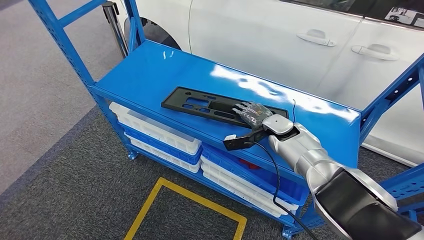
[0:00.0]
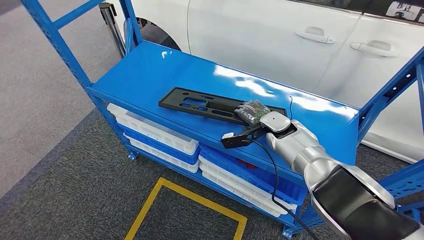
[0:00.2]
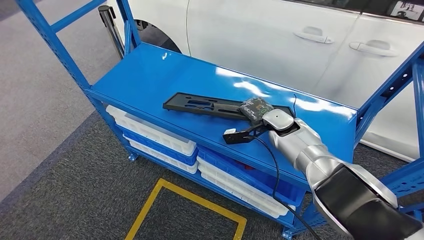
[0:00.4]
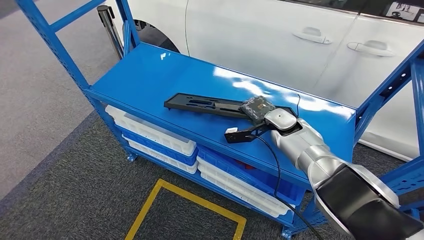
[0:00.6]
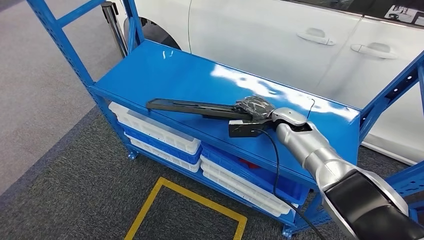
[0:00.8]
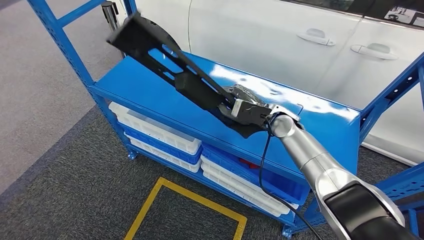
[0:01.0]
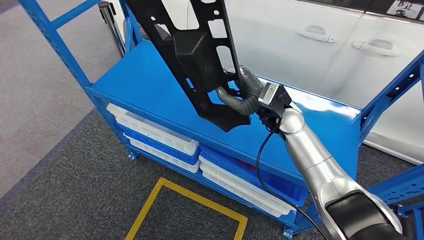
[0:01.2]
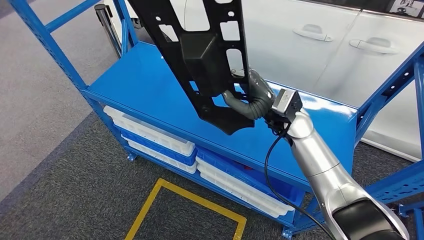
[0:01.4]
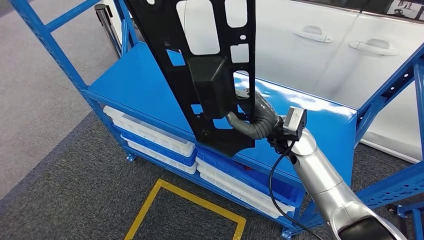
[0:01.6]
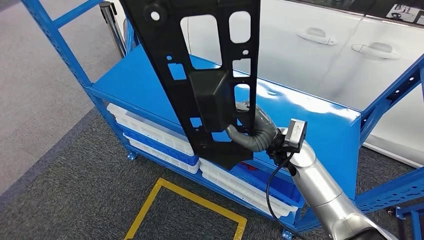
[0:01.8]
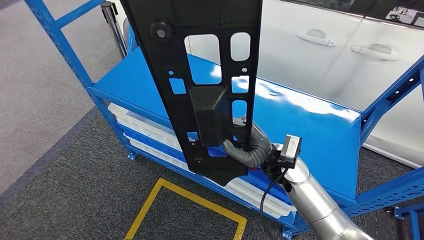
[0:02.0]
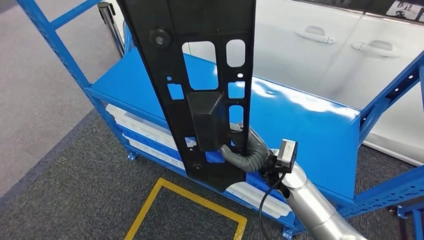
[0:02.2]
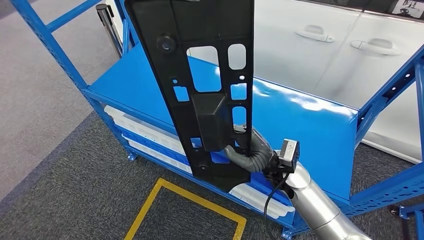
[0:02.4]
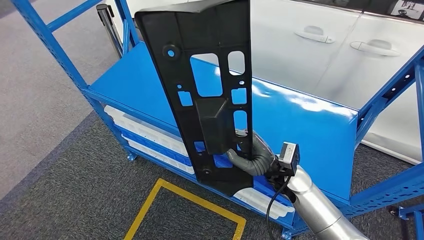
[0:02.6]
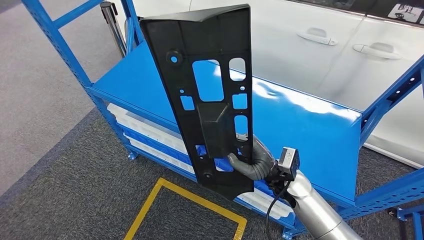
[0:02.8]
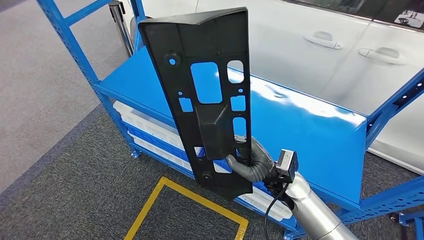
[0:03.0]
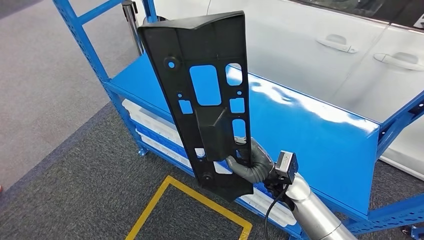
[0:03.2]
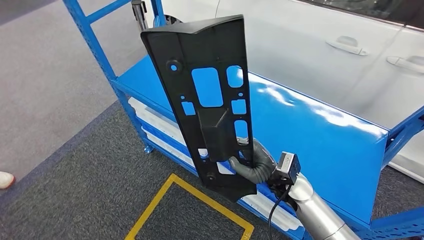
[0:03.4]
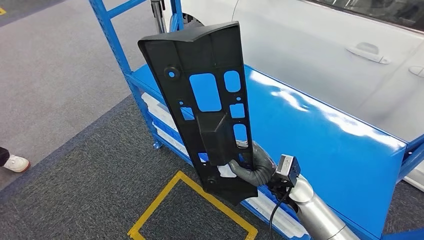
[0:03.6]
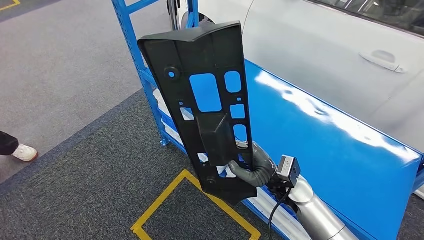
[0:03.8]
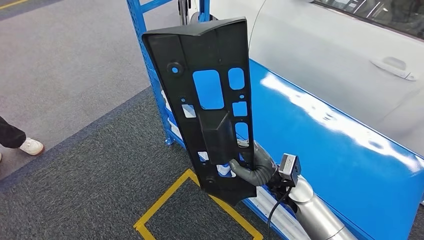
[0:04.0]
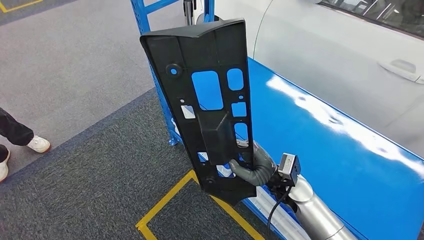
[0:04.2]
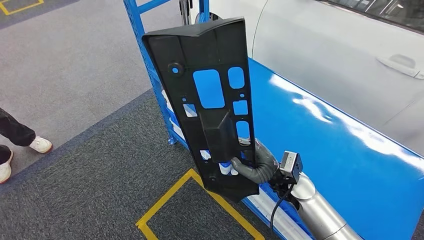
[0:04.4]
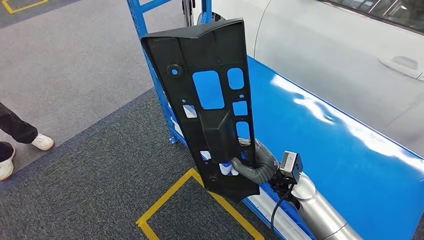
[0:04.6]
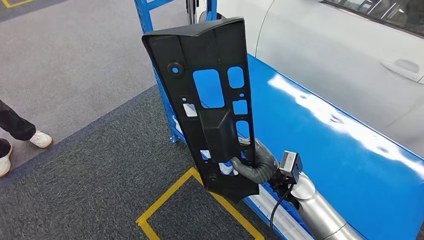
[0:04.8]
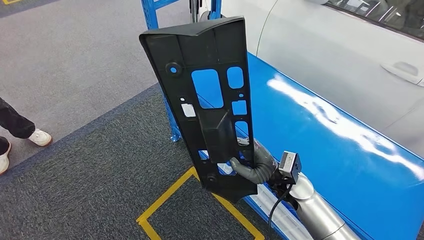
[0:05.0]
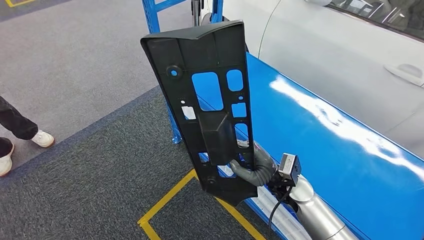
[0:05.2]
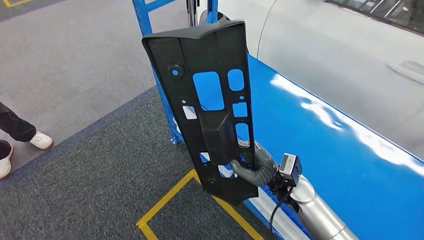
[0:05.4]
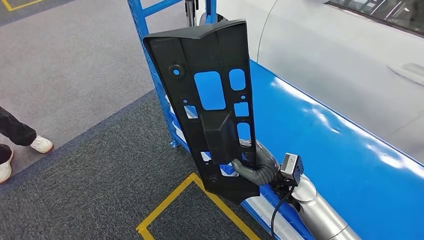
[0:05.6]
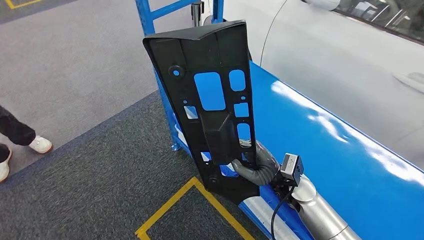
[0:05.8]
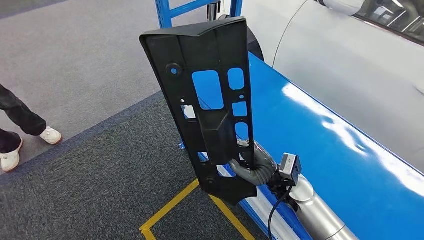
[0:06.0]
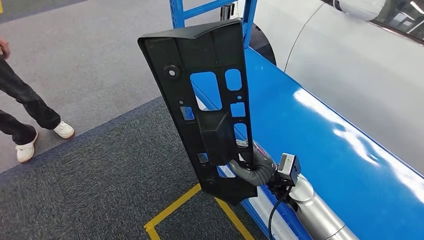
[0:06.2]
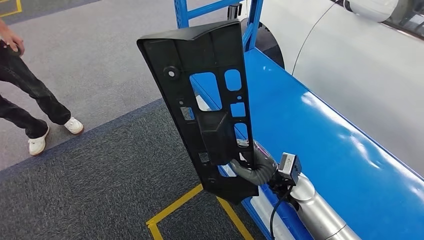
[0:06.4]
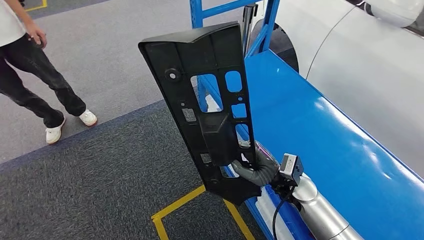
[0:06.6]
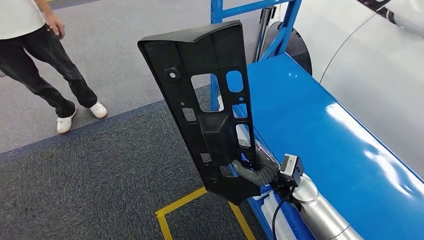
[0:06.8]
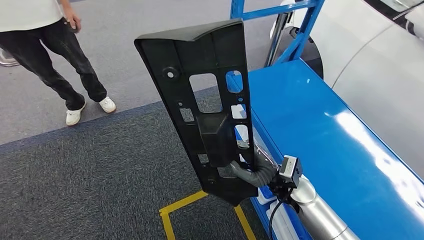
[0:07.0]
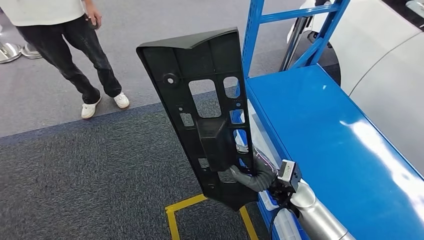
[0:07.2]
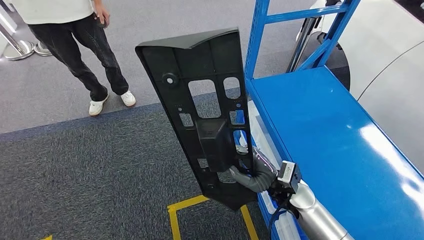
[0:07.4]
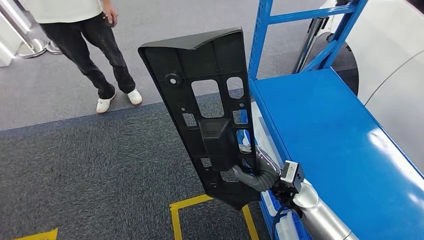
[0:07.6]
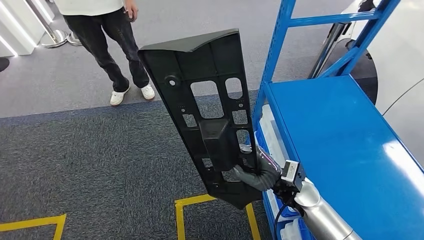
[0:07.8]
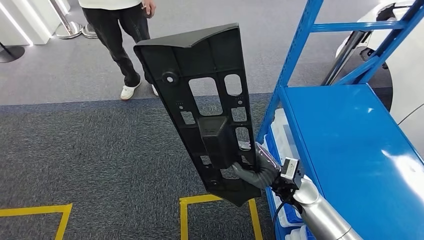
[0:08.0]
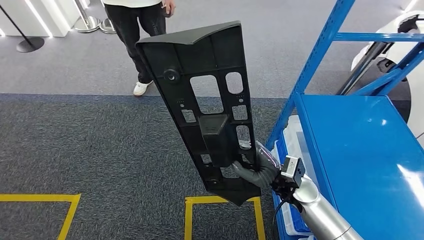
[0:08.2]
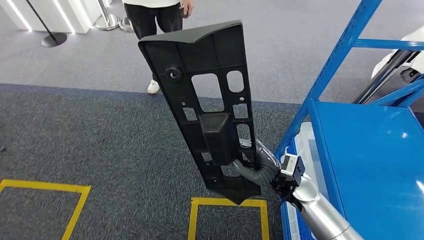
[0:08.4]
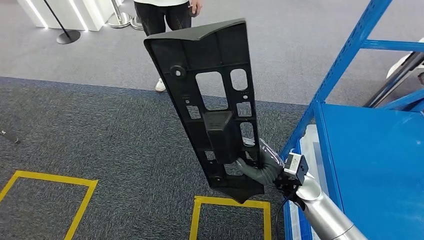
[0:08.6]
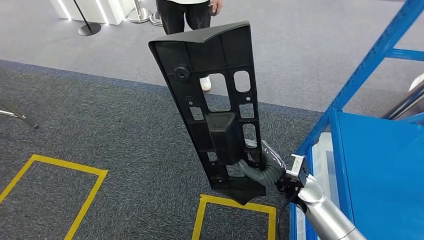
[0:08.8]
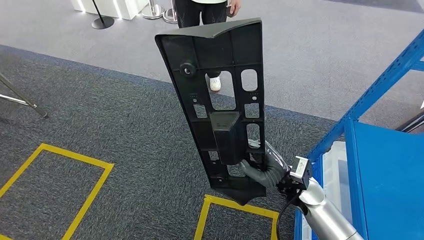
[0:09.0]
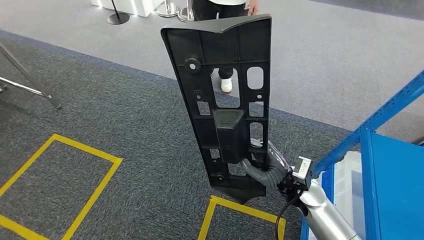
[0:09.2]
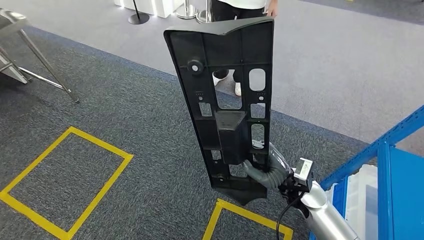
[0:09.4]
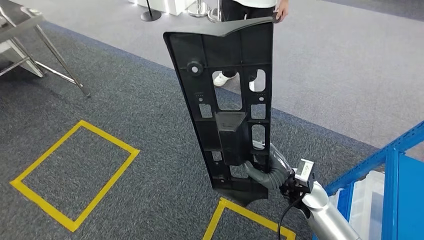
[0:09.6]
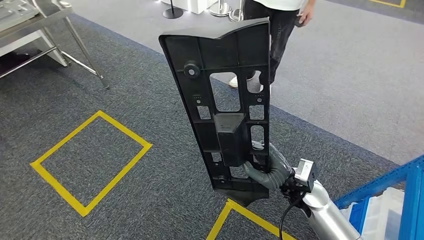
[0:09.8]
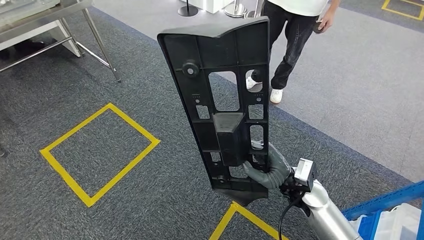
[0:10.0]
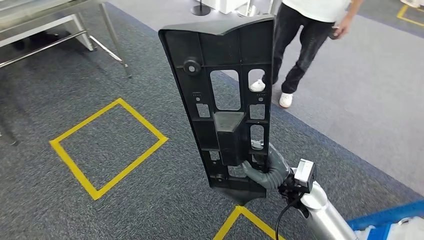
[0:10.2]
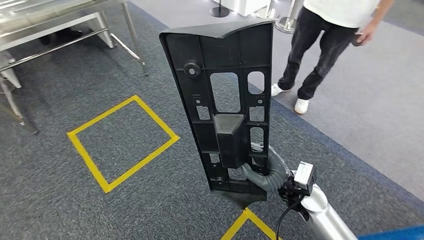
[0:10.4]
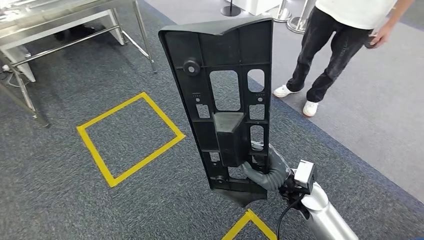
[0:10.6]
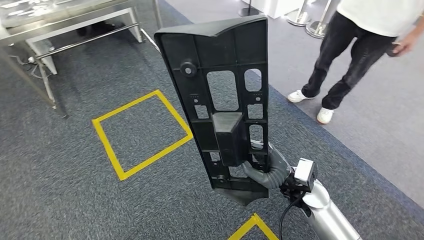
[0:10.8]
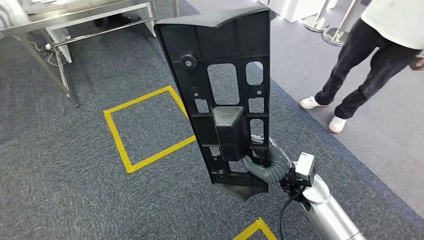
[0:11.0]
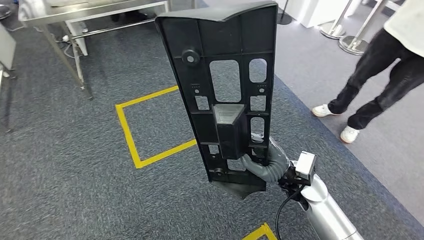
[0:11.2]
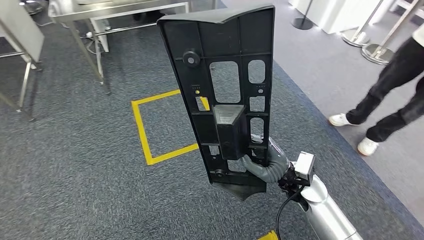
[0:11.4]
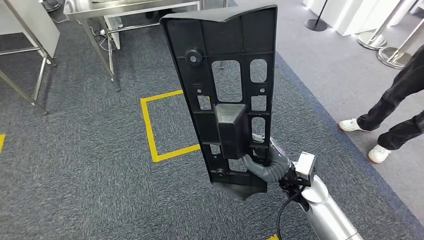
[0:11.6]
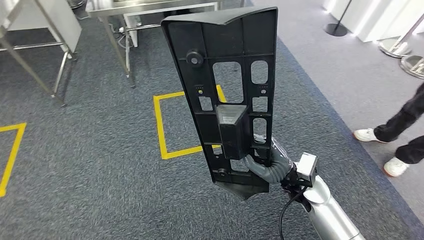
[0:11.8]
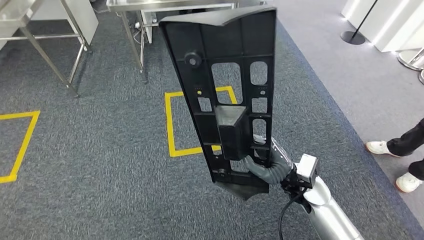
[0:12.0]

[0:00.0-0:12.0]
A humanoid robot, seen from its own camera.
Step, 0:00.0 to 0:02.2: Pick up the large material from the shelf.

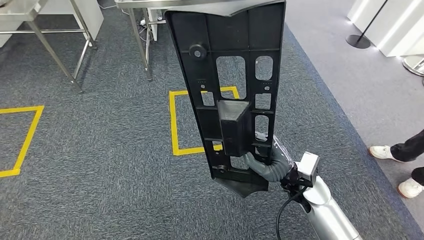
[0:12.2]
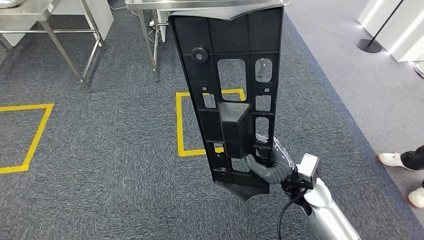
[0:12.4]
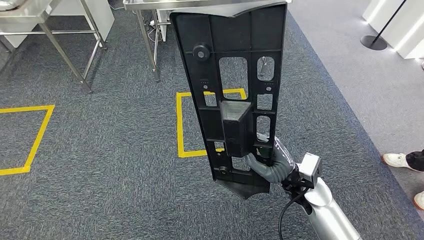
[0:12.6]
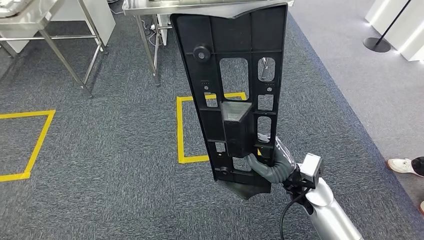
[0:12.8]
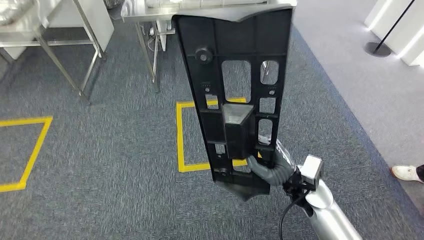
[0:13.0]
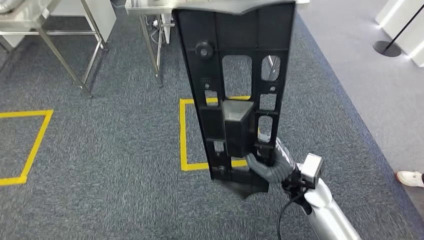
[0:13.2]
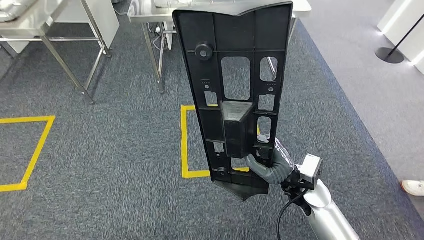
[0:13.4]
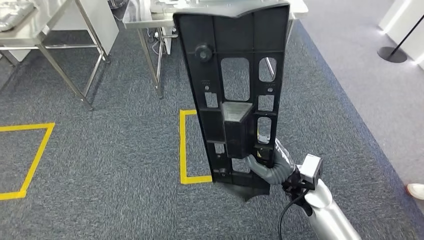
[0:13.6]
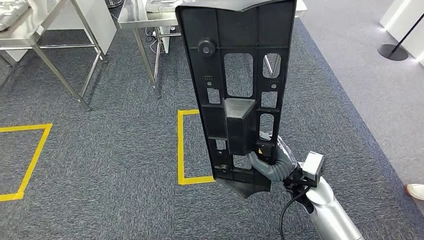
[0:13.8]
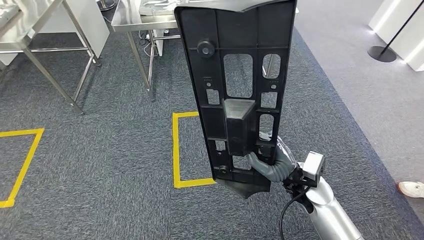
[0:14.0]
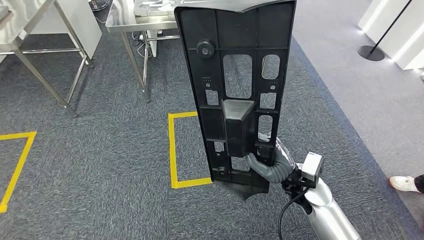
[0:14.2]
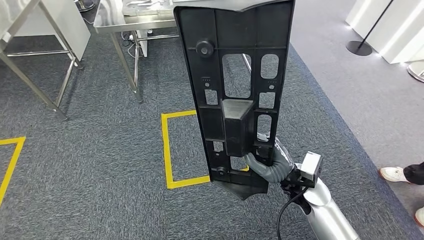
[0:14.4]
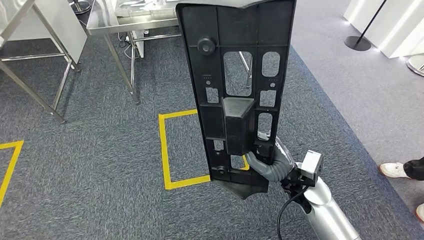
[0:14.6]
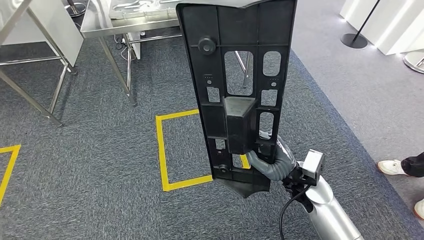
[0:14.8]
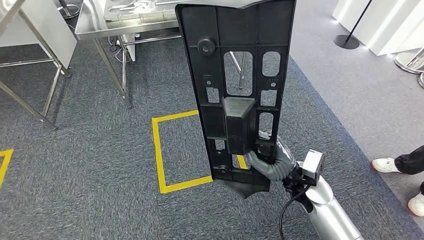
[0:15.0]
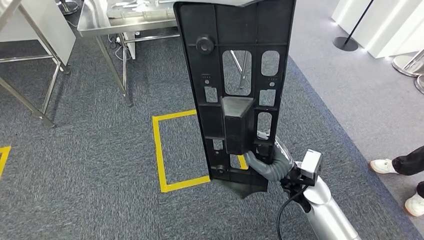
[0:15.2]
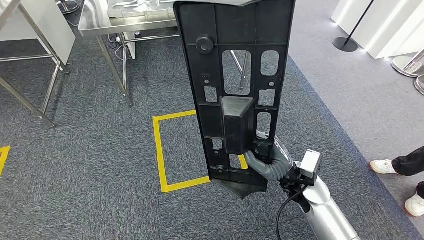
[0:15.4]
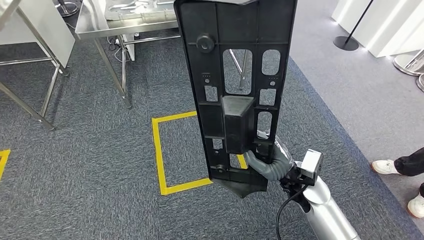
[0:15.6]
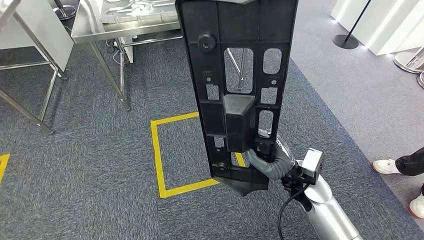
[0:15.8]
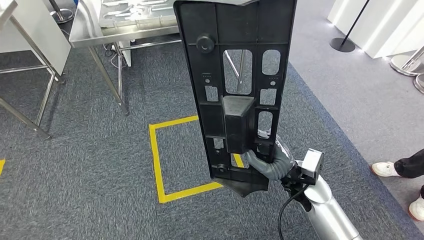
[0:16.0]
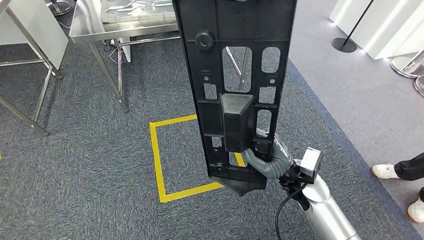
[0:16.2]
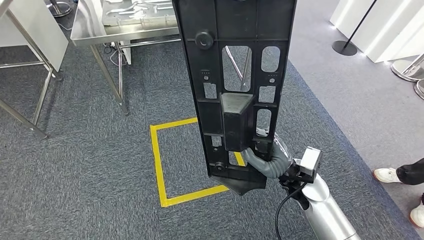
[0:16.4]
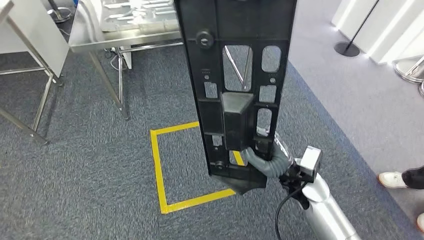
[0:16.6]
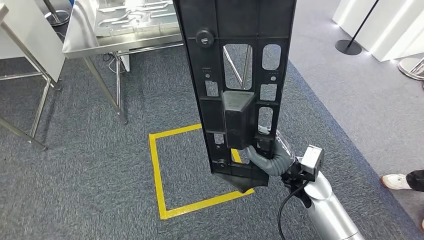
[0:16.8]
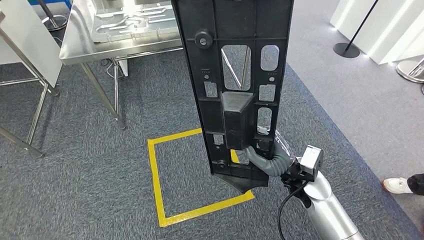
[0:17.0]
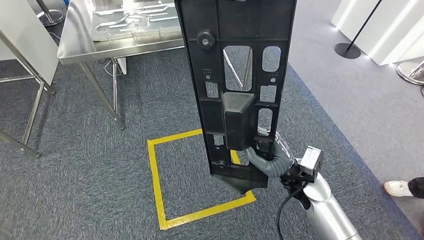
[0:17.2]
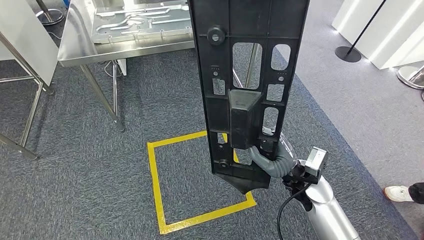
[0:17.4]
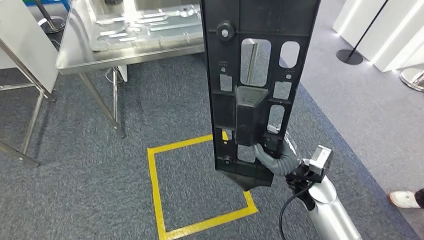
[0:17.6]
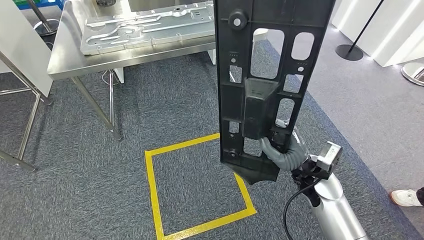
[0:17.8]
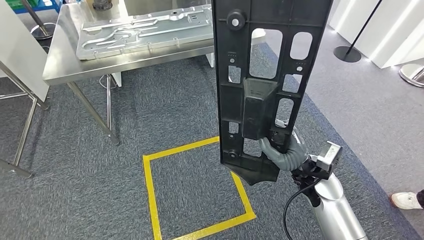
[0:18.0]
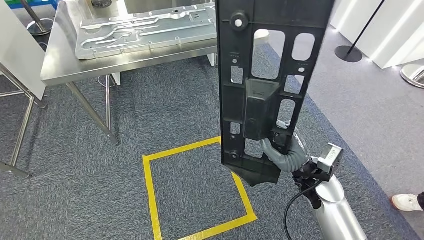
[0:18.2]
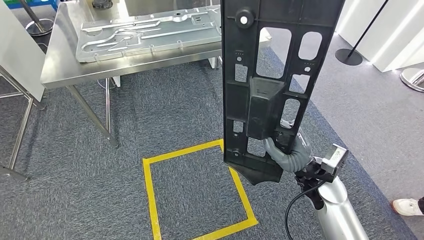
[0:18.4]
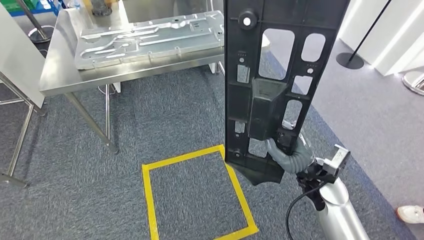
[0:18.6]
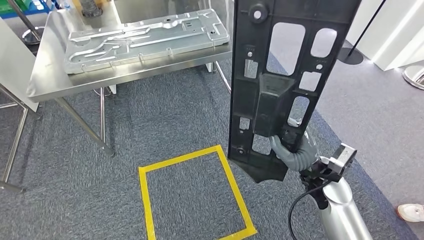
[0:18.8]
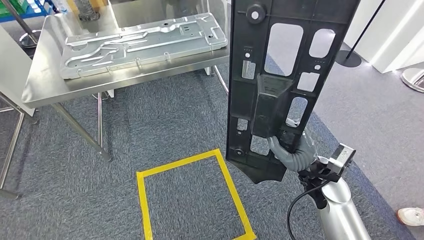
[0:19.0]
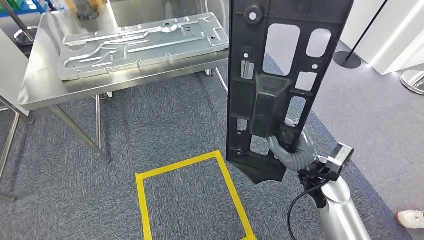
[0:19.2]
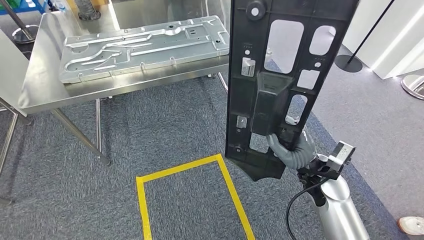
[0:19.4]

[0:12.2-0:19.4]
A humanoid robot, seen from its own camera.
Step, 0:12.2 to 0:18.8: Move the large material to the workbench.
